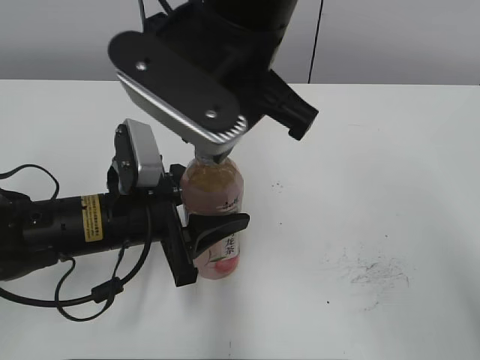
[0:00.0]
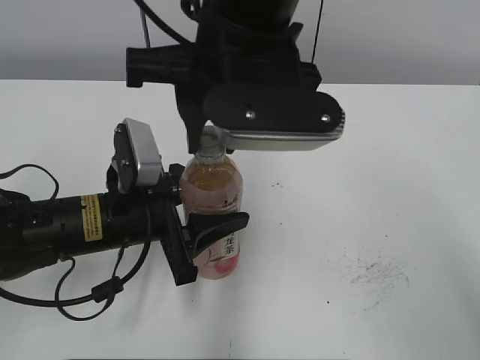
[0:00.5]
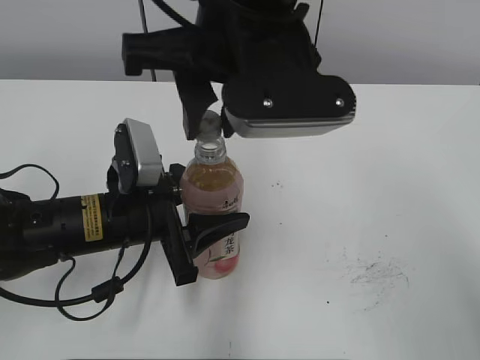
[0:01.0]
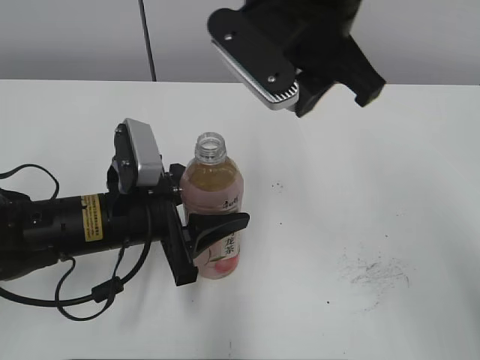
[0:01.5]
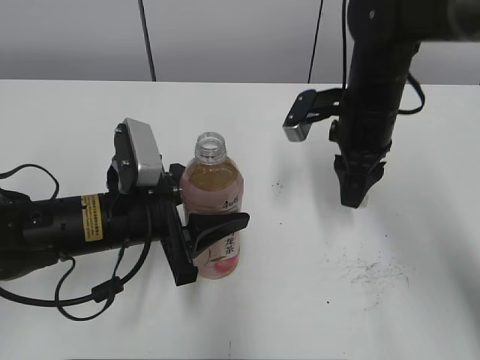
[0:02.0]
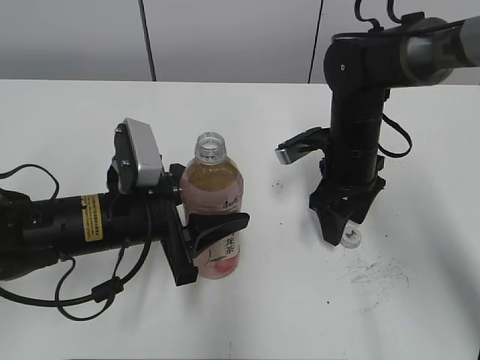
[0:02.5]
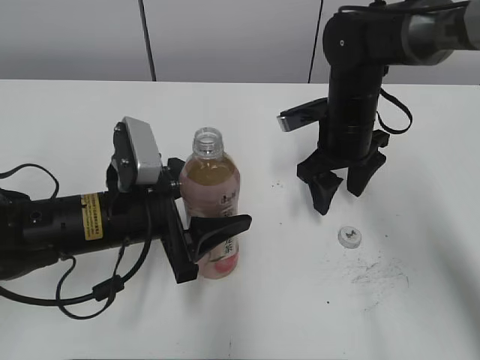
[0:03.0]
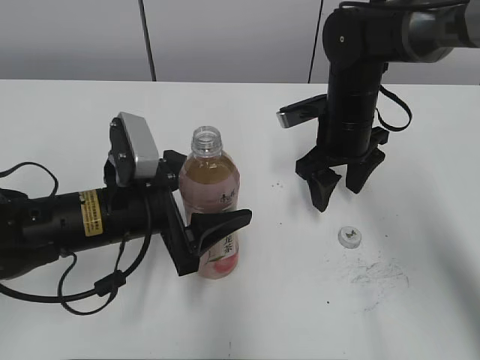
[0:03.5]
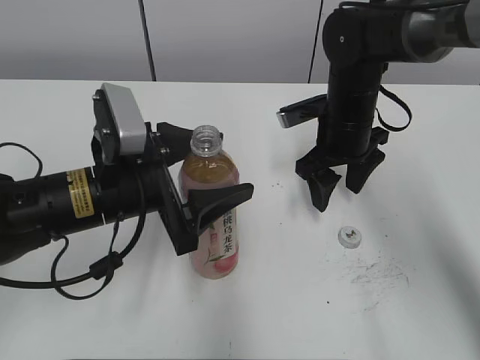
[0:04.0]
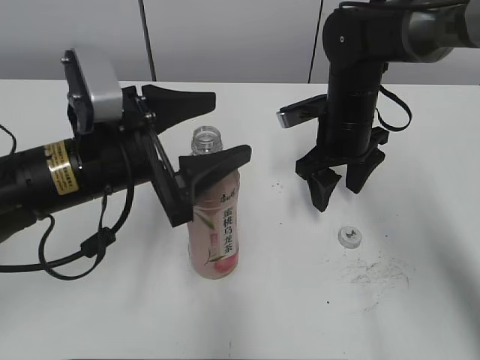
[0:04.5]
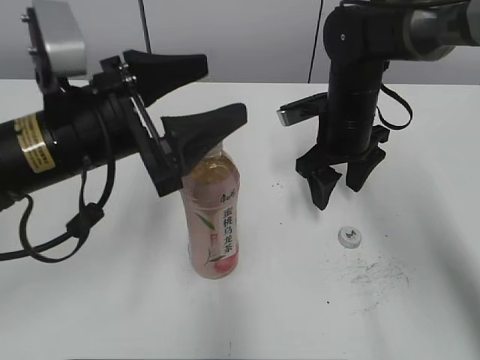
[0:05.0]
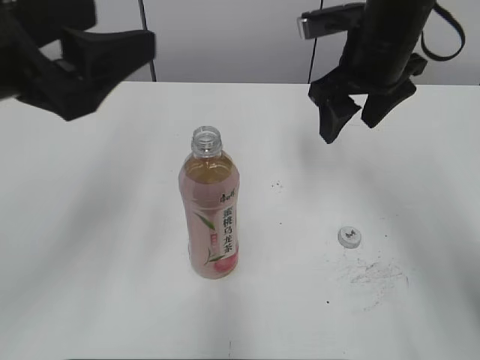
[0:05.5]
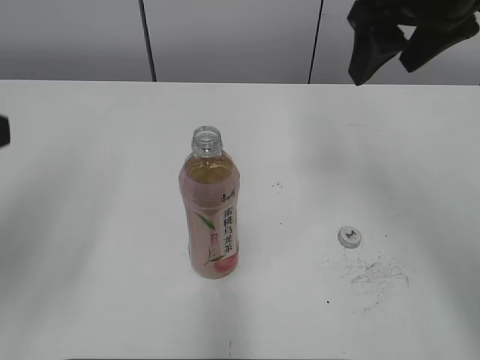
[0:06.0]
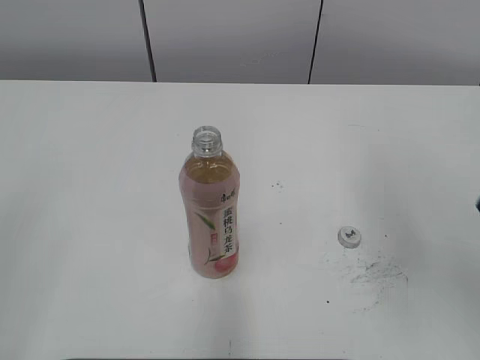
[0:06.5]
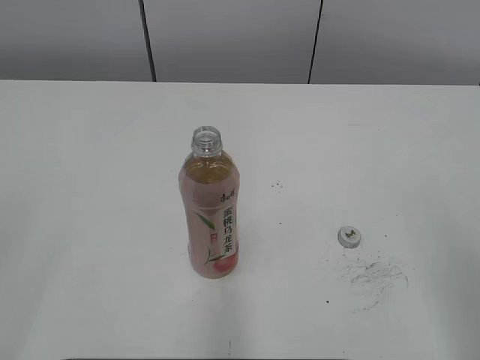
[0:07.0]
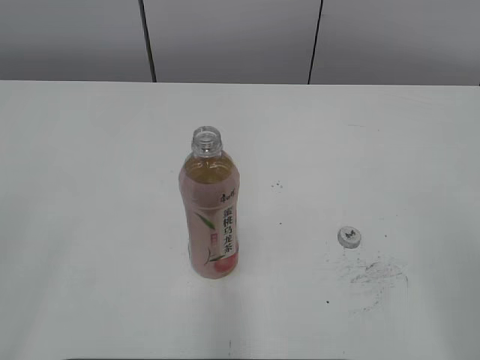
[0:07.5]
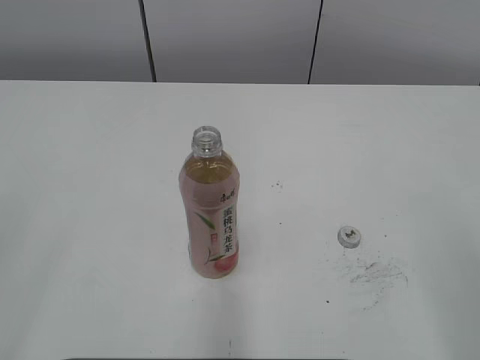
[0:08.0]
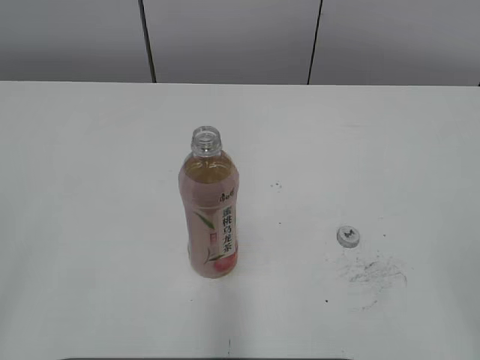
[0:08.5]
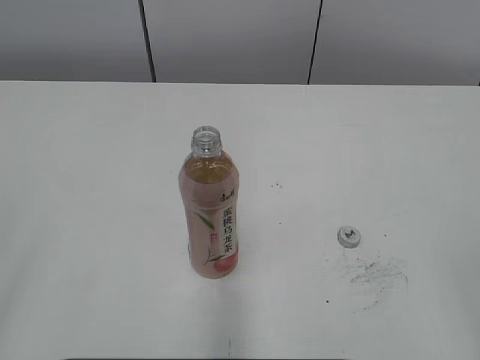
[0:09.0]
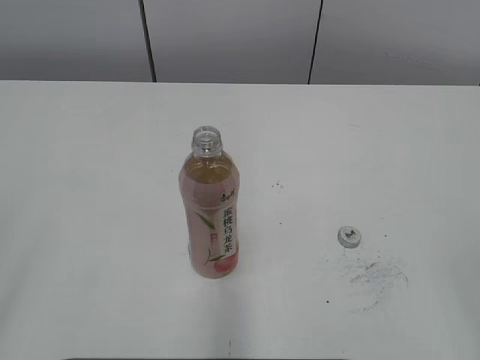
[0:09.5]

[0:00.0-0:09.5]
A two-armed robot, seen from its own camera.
Step, 0:01.0 to 0:02.0: Place the bottle cap on the right.
0:00.0 to 0:02.0: The right gripper goes some 20 cm to the right, downward and forward.
0:02.0 to 0:04.0: The right gripper changes place by about 5 cm, and opens. The left gripper opens up.
0:04.0 to 0:05.5: Both grippers move upward, approximately 15 cm.
0:05.5 to 0:07.5: The right gripper is displaced backward and to the right by roughly 40 cm. The left gripper is displaced backward and to the left by about 25 cm.

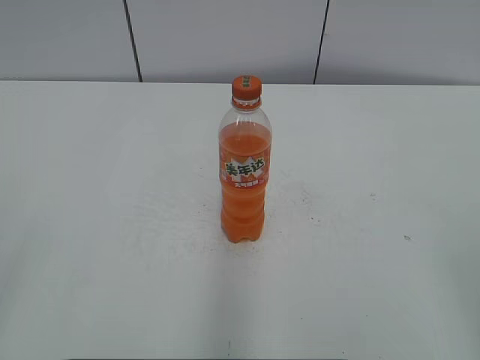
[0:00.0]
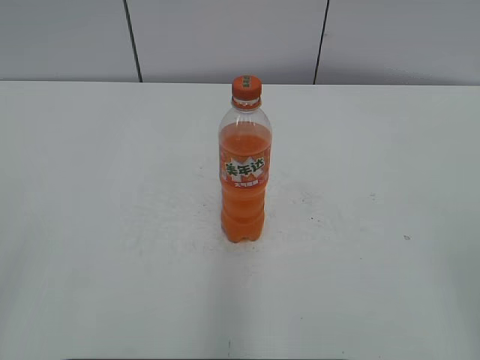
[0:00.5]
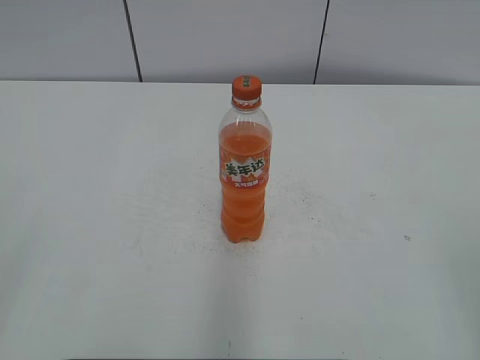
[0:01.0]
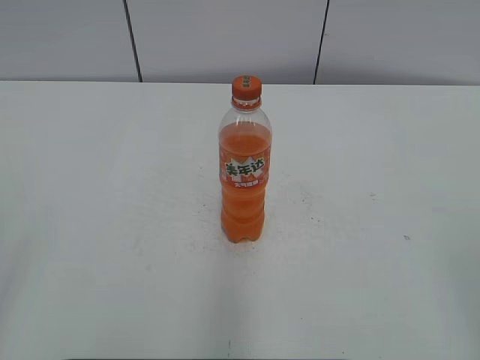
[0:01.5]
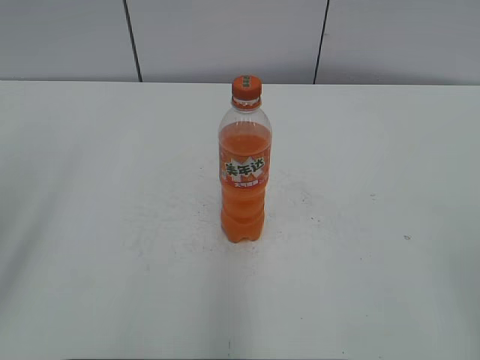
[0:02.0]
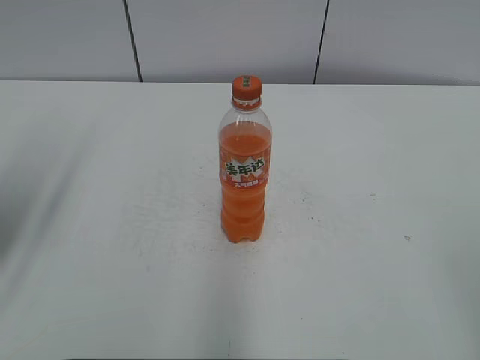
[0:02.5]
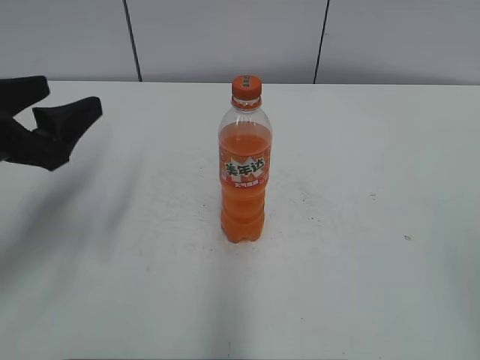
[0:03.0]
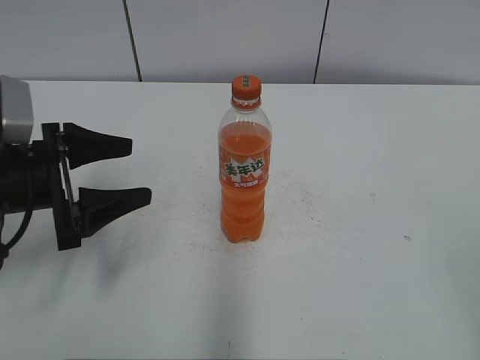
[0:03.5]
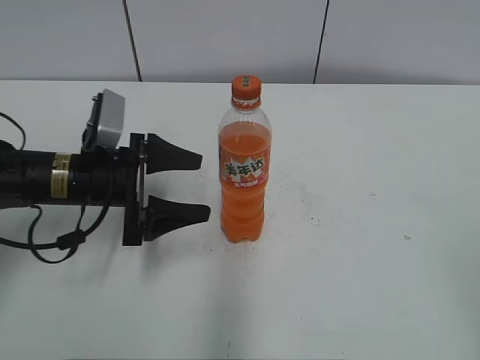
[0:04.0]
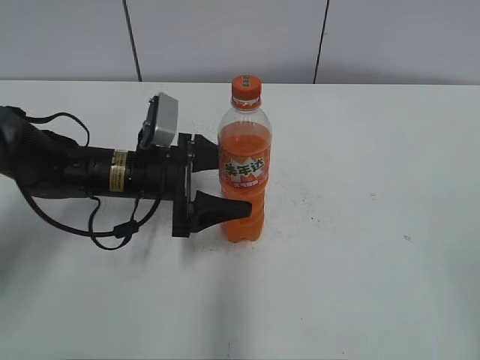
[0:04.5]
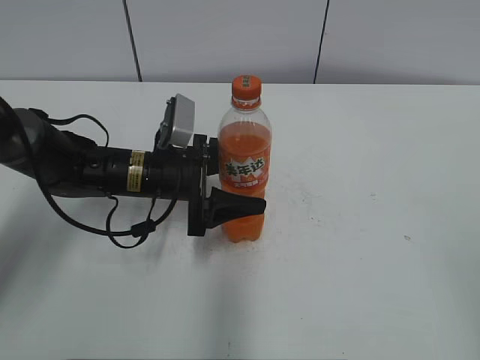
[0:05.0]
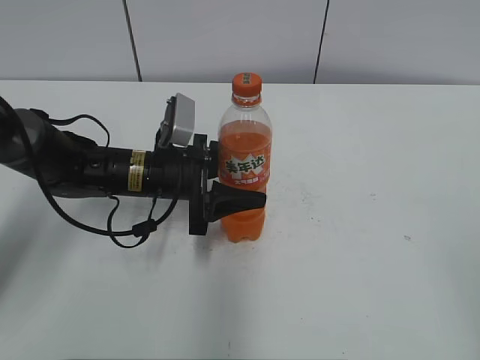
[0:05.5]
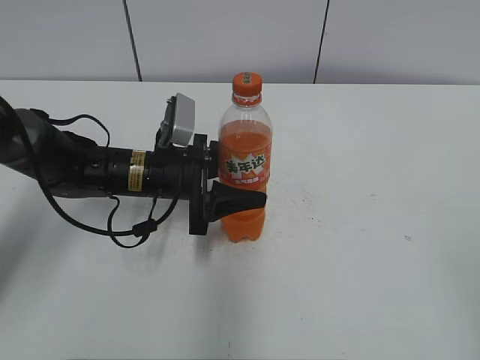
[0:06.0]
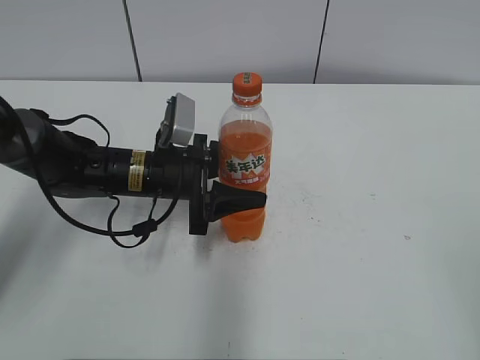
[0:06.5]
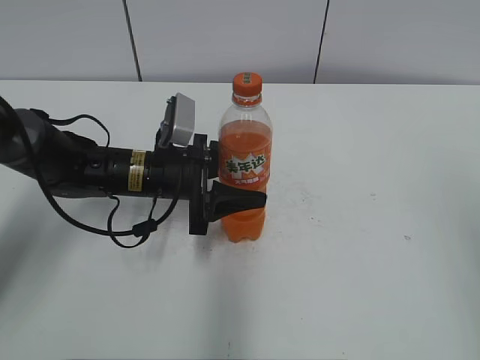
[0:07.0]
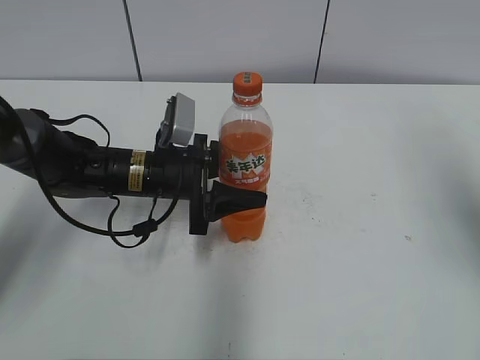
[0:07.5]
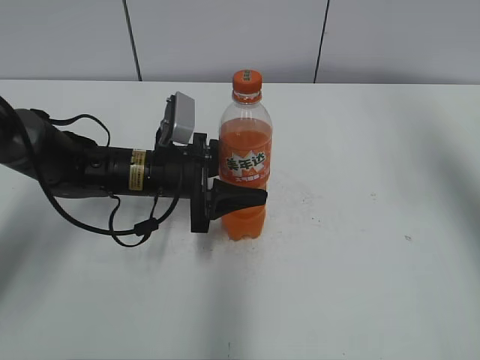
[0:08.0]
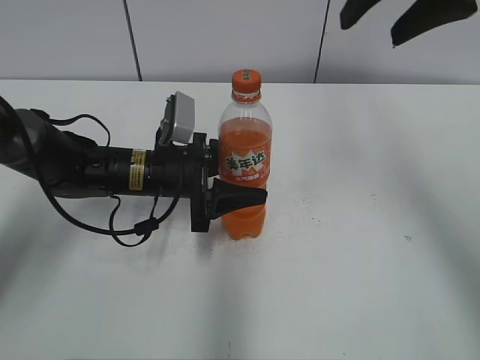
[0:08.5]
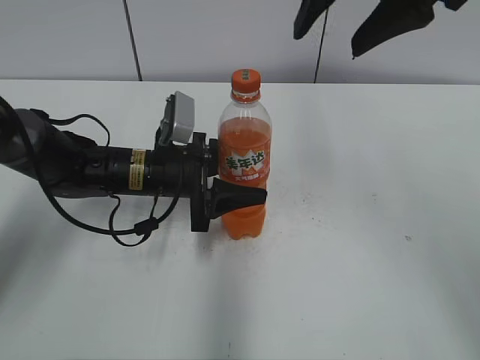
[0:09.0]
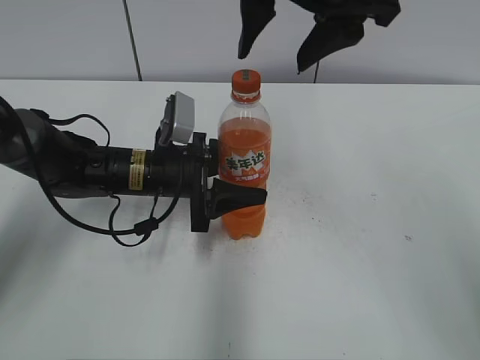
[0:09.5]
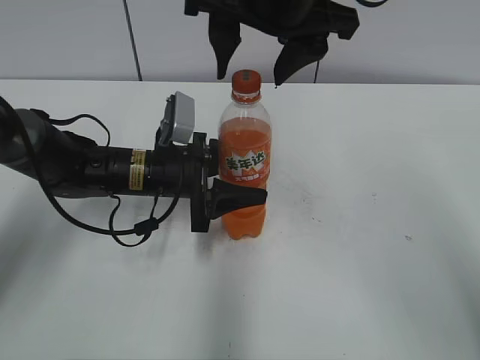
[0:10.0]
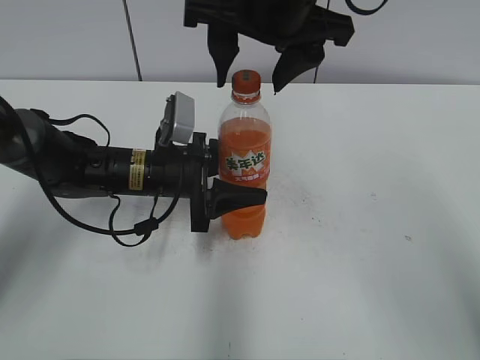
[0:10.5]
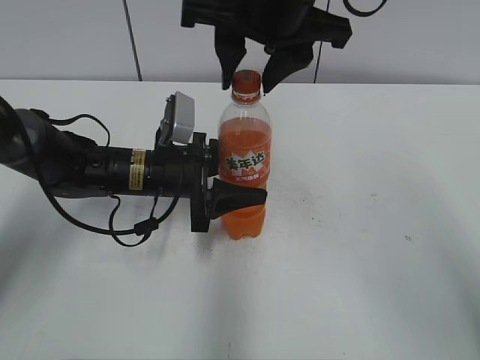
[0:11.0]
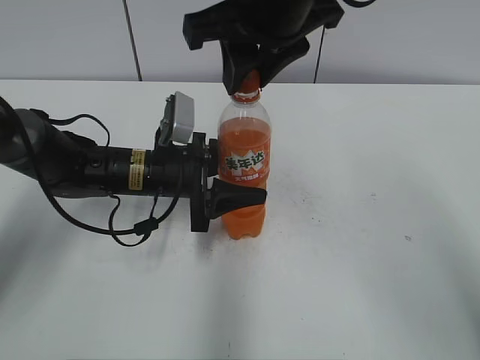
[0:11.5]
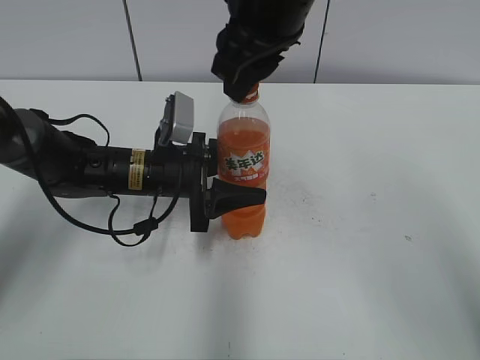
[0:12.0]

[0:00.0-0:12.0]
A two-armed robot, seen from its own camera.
Step, 0:00.0 to 0:05.0: Grab the Mirinda with the left hand.
0:02.0 to 0:04.0: The left gripper is displaced forward, downward and to the right by roughly 35 cm.
0:04.0 to 0:06.0: The left gripper moves to the right, roughly 10 cm, and closes.
0:06.0 to 0:08.0: The right gripper goes roughly 30 cm forward.
0:08.0 to 0:10.0: The right gripper is displaced to the left by roughly 25 cm.
0:10.0 to 0:12.0: The right gripper closes up.

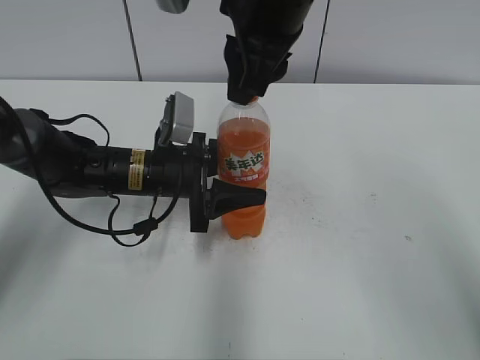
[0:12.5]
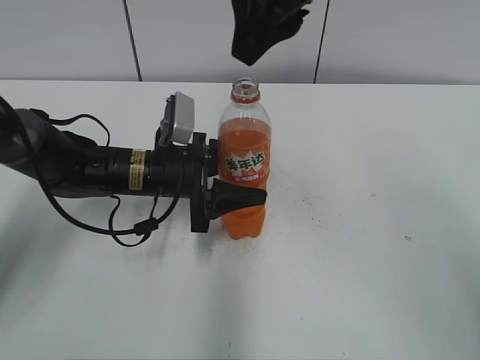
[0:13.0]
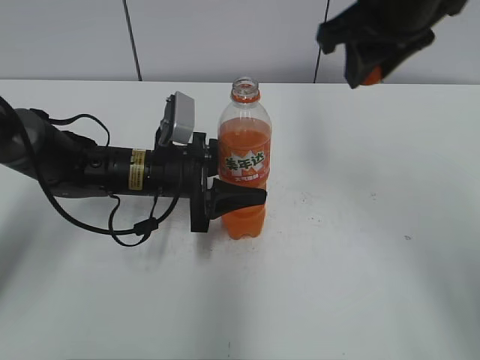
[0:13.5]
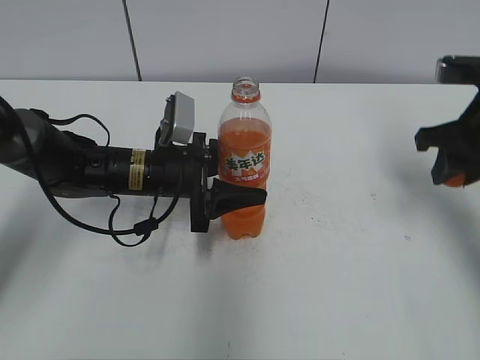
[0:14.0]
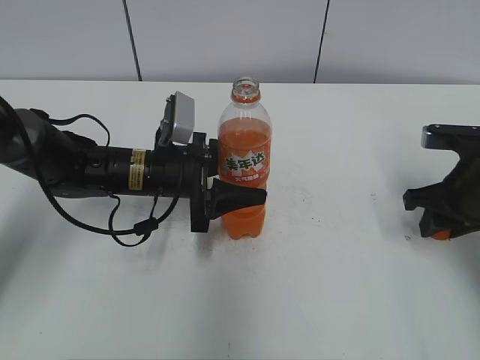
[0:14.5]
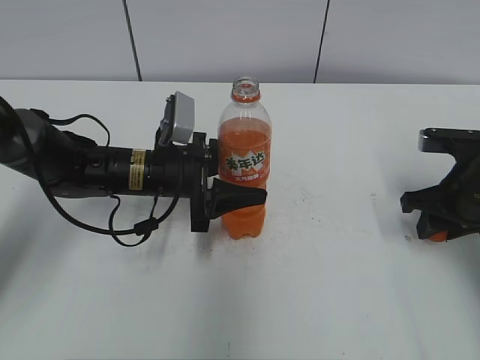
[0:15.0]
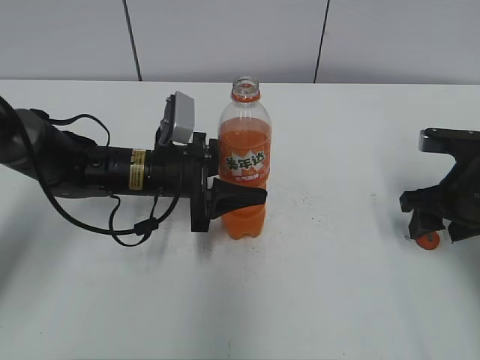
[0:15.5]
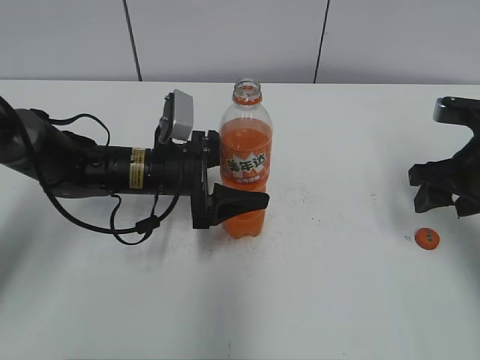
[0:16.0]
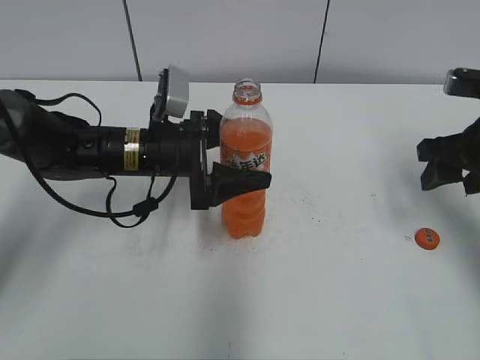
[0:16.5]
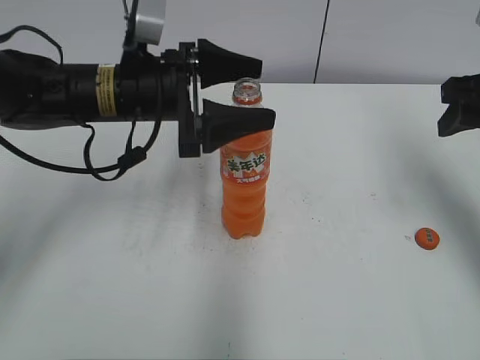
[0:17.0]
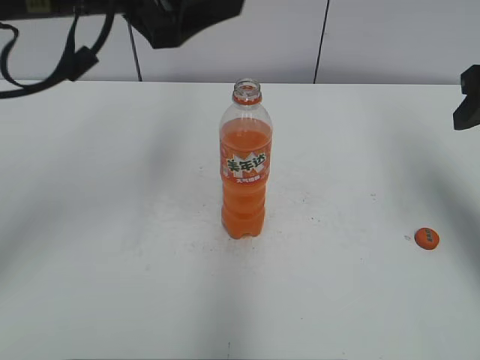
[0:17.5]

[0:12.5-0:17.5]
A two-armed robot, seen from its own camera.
Step, 0:13.0 to 0:15.0: Place the bottle cap on the right.
0:12.5 to 0:15.0: The right gripper travels to the right and downward by some 30 cm.
0:15.0 to 0:17.5: The grippers both shift upward by about 20 cm. The left gripper opens up. The right gripper opens up.
